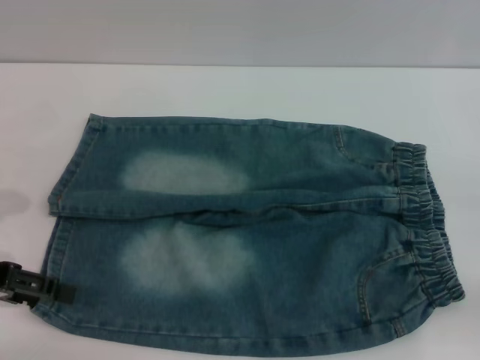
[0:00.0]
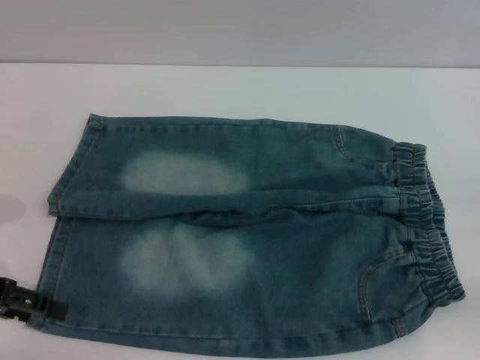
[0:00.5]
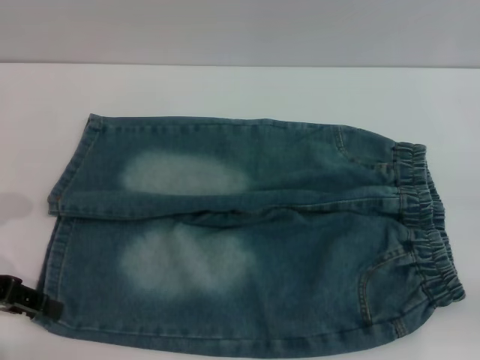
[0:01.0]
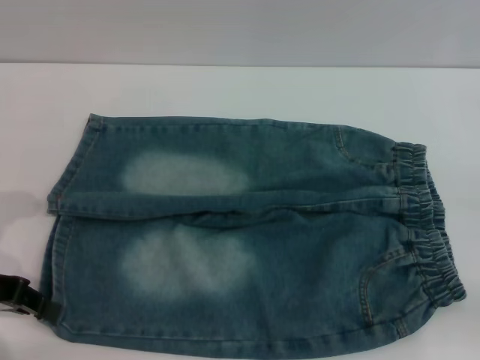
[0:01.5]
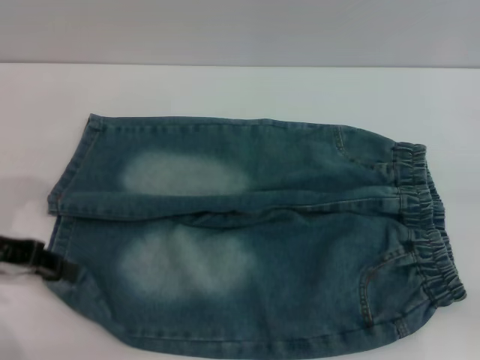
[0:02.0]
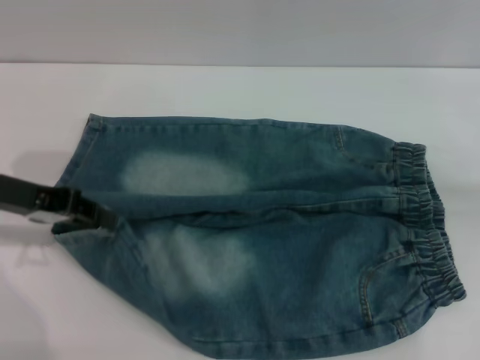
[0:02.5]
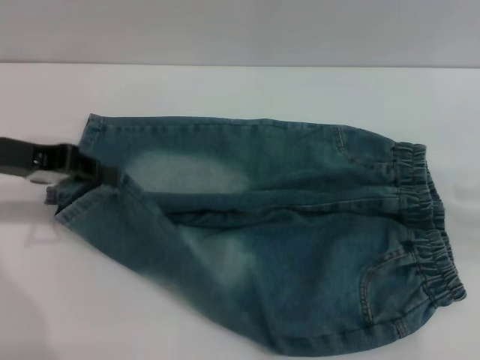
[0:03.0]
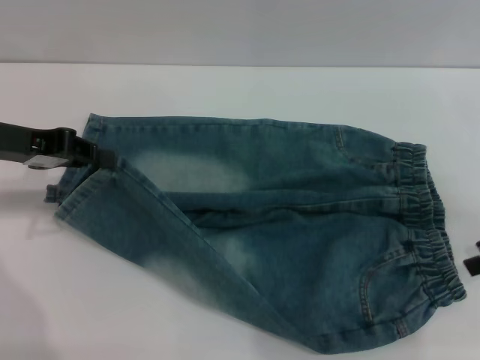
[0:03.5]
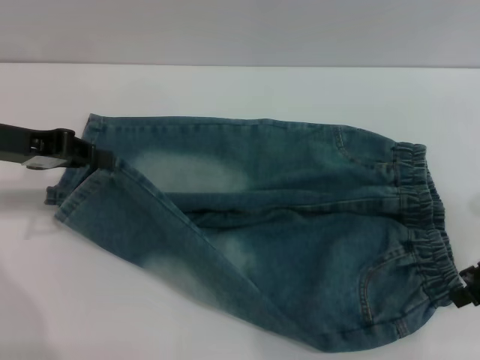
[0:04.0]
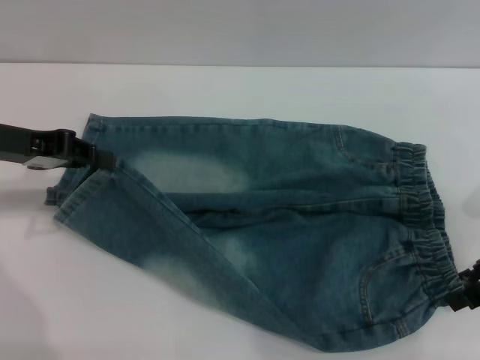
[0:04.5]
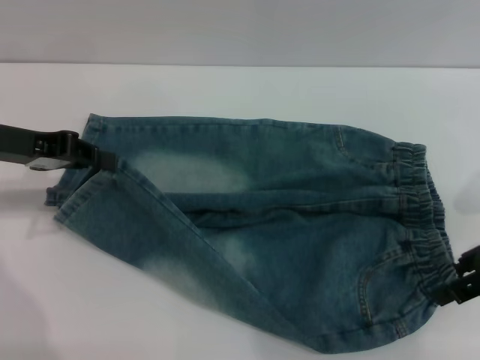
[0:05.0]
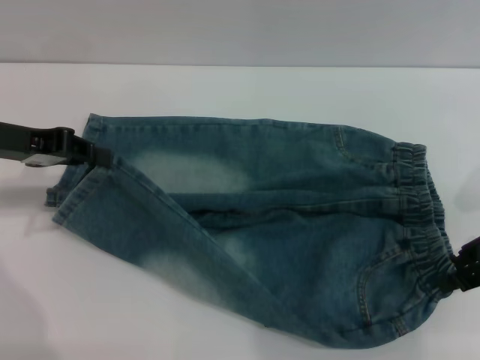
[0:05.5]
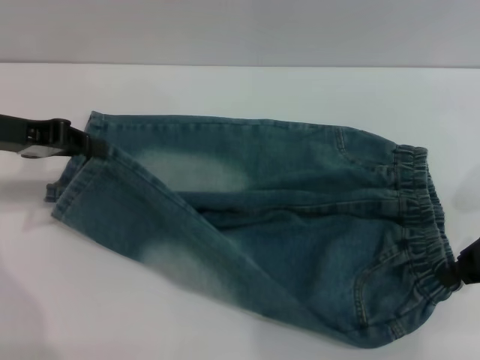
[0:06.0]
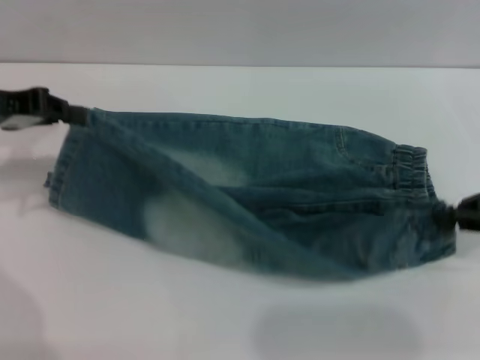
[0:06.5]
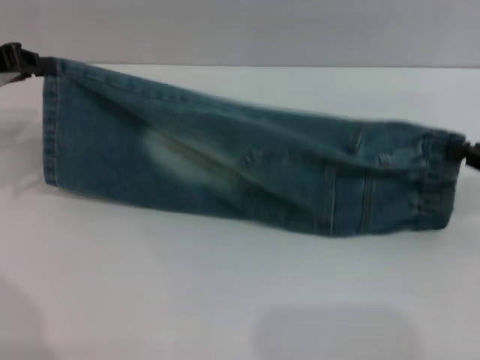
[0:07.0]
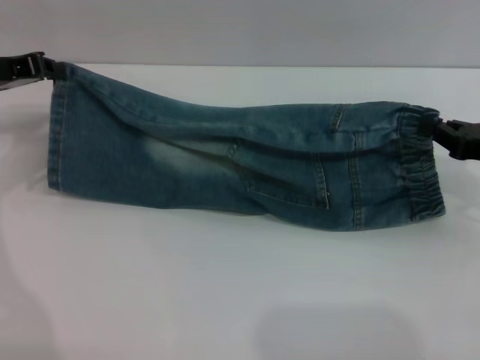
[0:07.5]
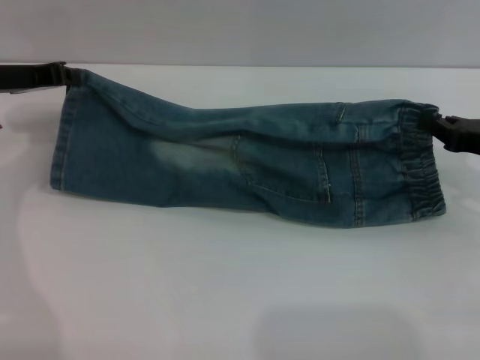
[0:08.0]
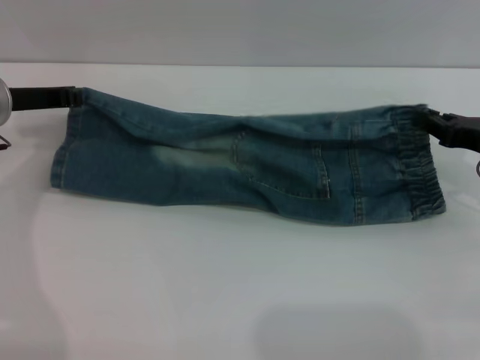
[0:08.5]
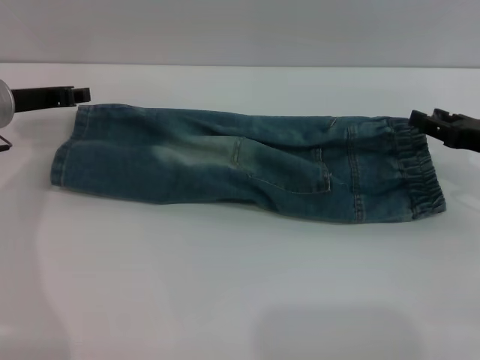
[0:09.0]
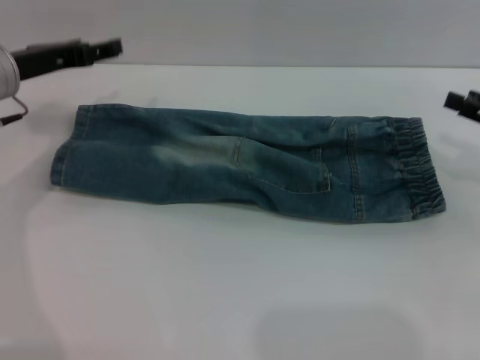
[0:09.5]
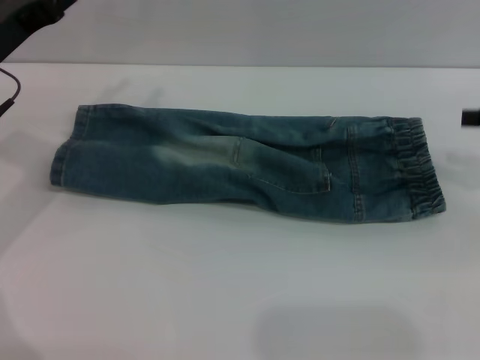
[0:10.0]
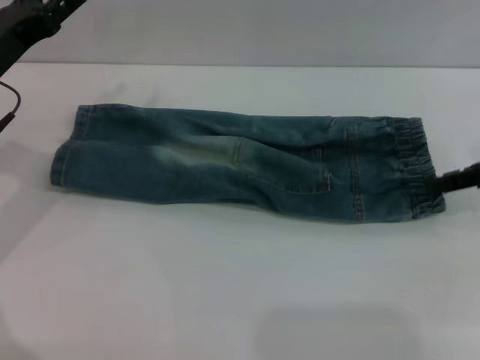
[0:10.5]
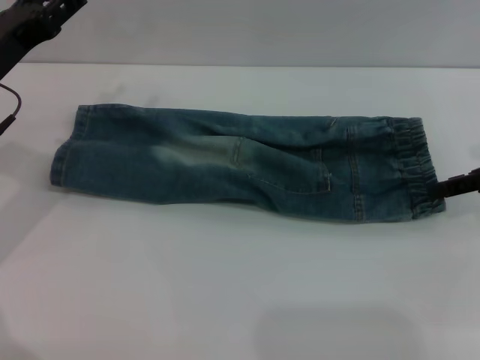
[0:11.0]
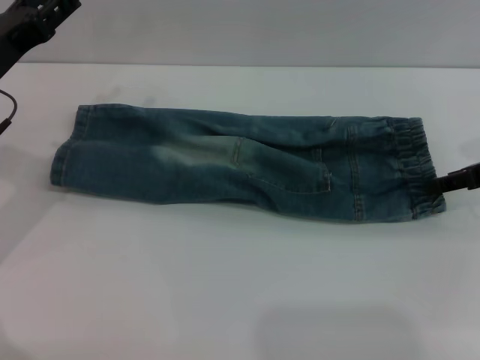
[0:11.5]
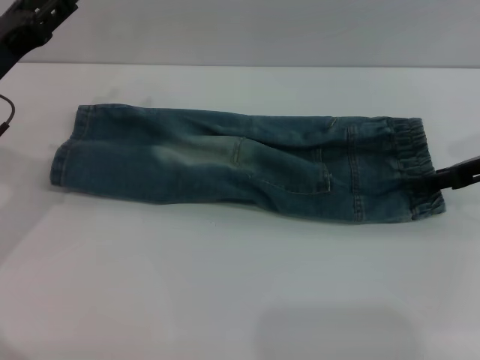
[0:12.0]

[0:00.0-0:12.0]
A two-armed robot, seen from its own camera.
Step, 0:00.0 to 0:09.5: Fold the bottom of the pants upward with both grippers.
0:00.0 to 0:02.0: The left gripper closes up.
0:02.0 to 0:04.0: The right gripper goes some 15 cm to the left and forward; the left gripper is displaced forward by some 5 cm.
0:04.0 to 0:06.0: The right gripper closes.
0:06.0 to 0:08.0: The right gripper is displaced downward by approximately 5 cm. The left gripper moves roughly 5 cm.
0:08.0 to 0:10.0: The left gripper opens up, while the right gripper shifts some 10 cm upward, and opens.
0:10.0 to 0:12.0: The right gripper is displaced to the left by about 5 cm.

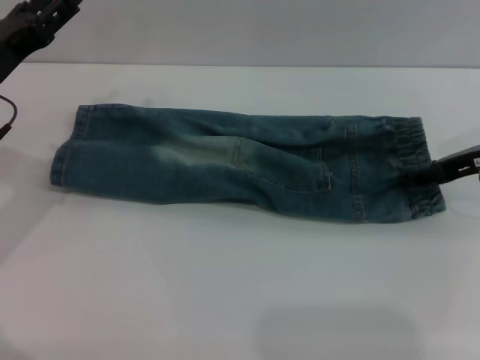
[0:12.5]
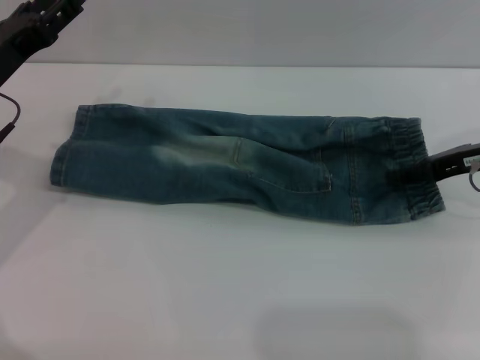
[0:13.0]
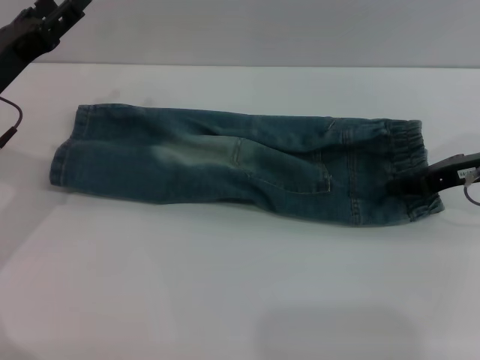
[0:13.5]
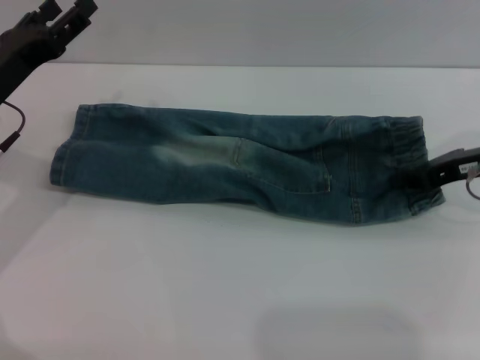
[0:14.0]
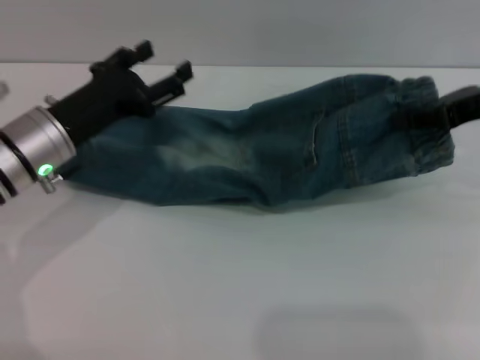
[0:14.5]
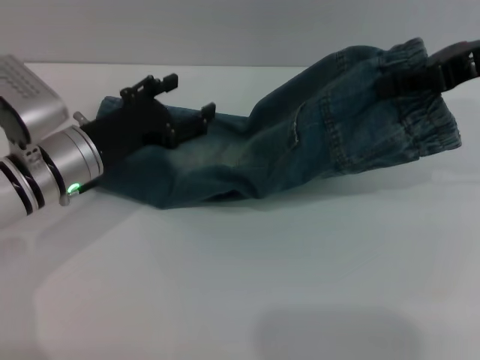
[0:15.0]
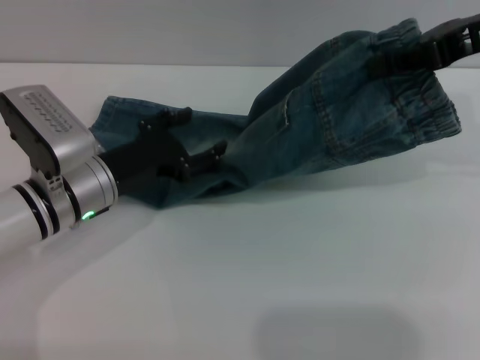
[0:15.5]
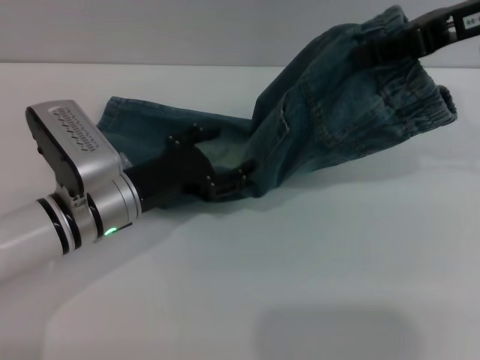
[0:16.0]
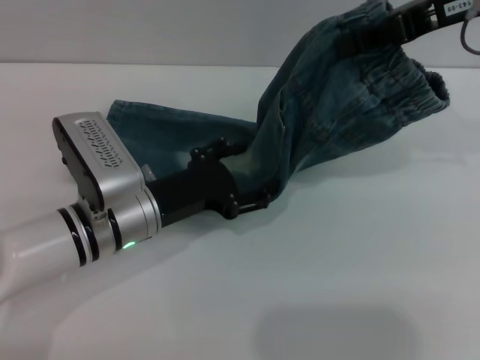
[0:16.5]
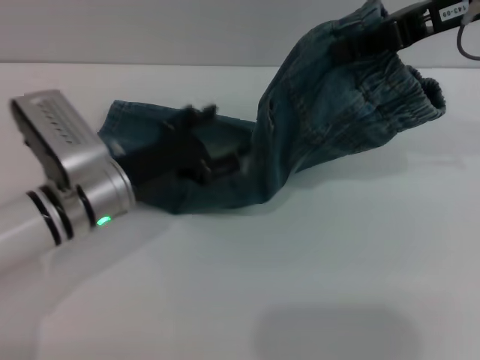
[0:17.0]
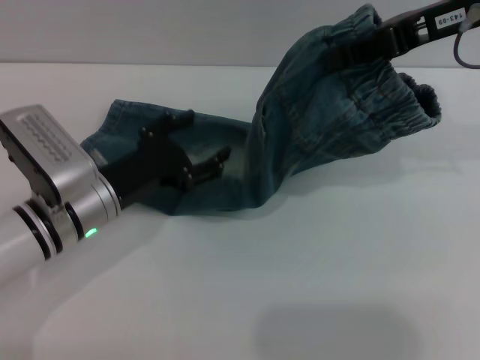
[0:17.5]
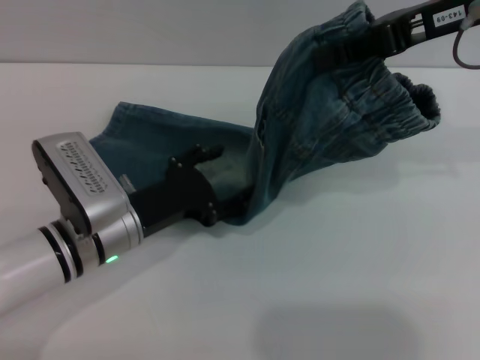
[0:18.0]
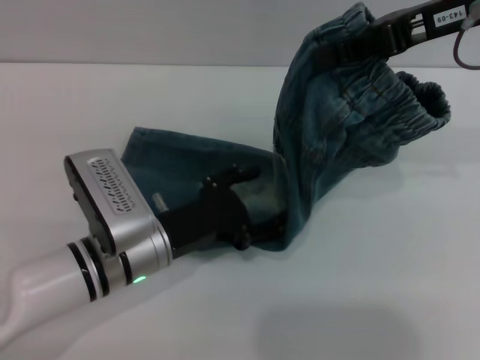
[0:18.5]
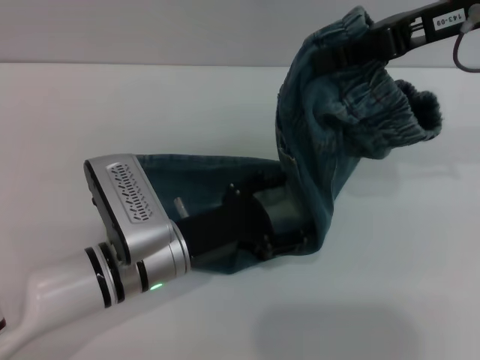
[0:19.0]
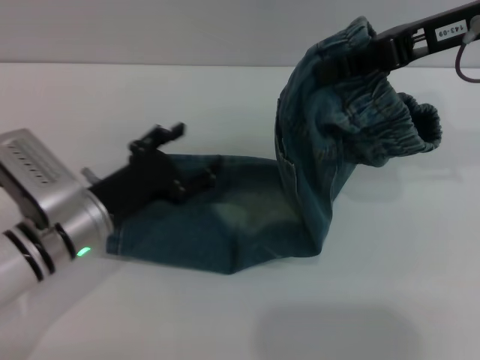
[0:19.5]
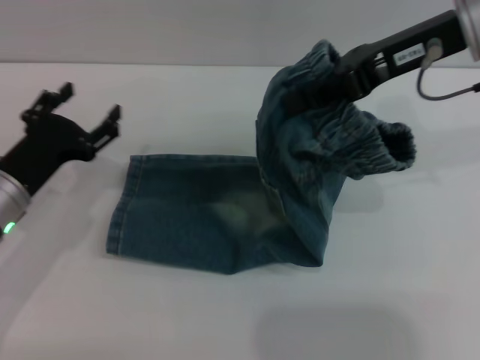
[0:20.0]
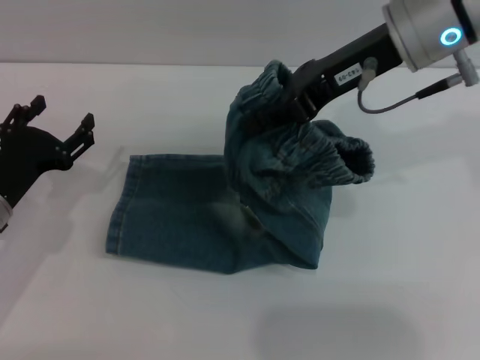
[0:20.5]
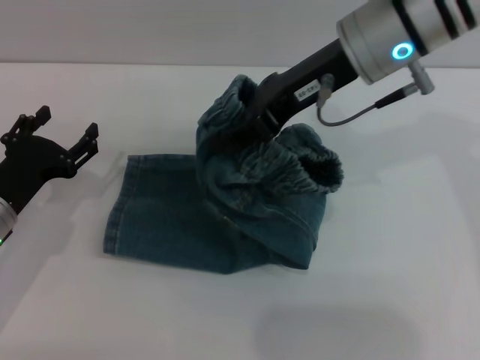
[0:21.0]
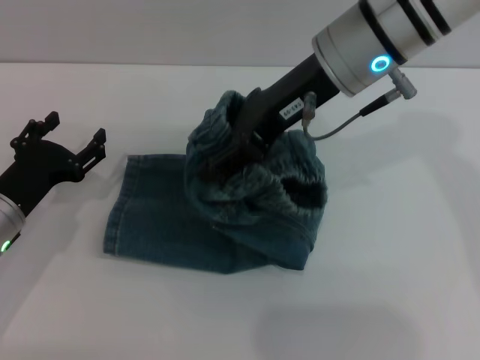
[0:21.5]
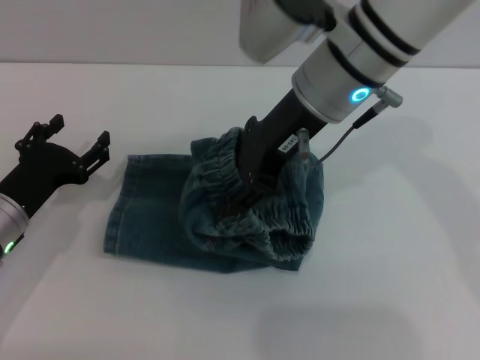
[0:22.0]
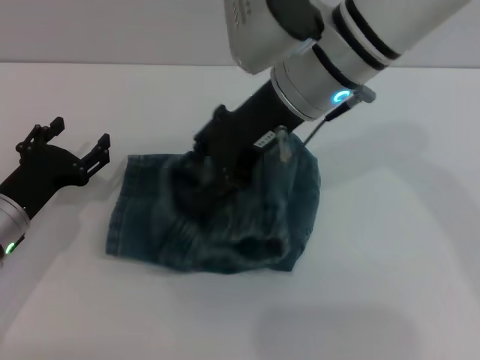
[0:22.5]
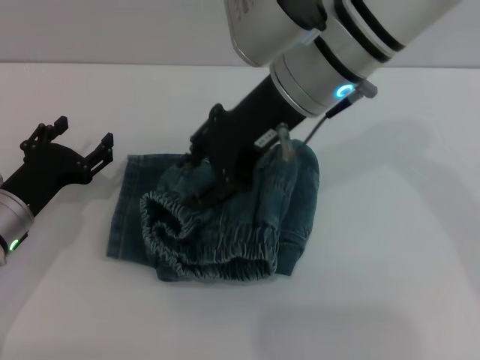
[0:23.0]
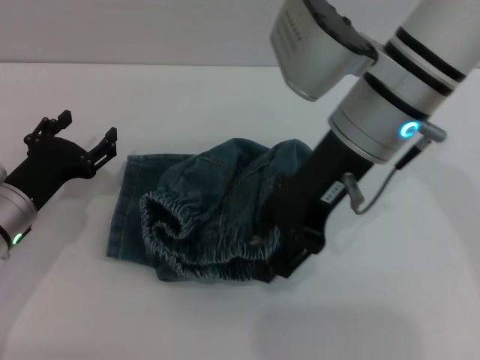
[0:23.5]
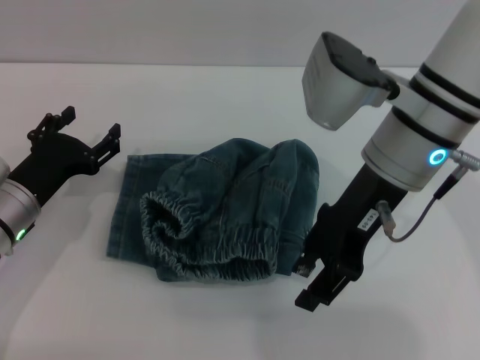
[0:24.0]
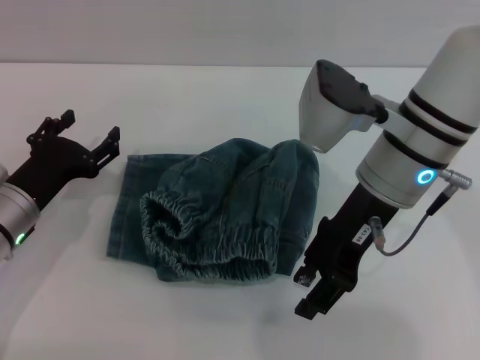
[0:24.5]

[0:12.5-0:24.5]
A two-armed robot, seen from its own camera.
Step, 0:12.5 to 0:23.0: Fold the pants from right to left with the right gripper.
0:12.5 to 0:14.5: The right gripper moves upward, approximately 5 cm, and closes up, while the left gripper is displaced to the right by approximately 5 cm.
0:14.5 to 0:16.5: The right gripper goes some 10 cm upward and to the left. Meanwhile the left gripper is displaced to the right by roughly 5 cm.
0:18.5 to 0:20.5: The left gripper heads to the left, covering roughly 15 cm. Meanwhile the right gripper heads to the left, covering approximately 10 cm.
0:20.5 to 0:22.5: The right gripper moves to the left, approximately 10 cm, and opens its fingers.
0:22.5 to 0:24.5: The right gripper travels to the right and downward by some 10 cm.

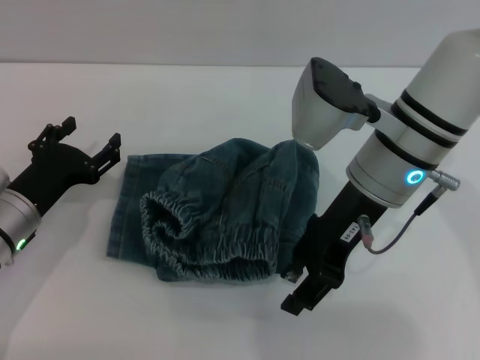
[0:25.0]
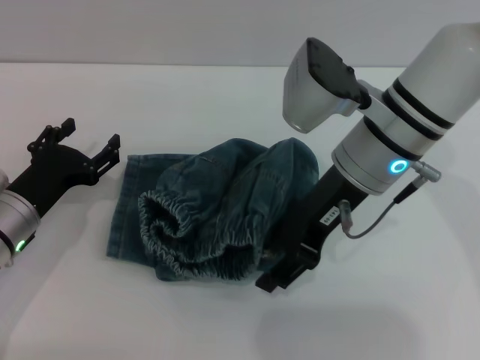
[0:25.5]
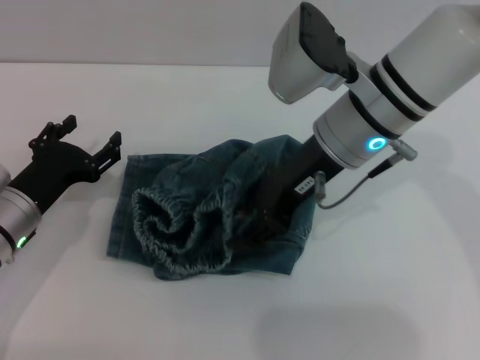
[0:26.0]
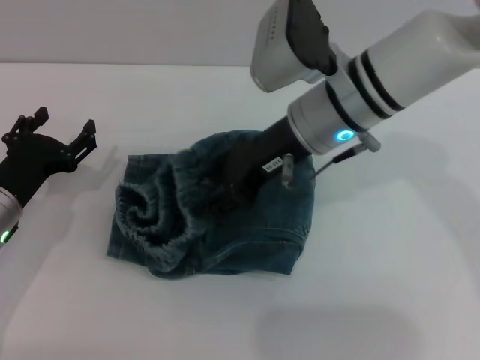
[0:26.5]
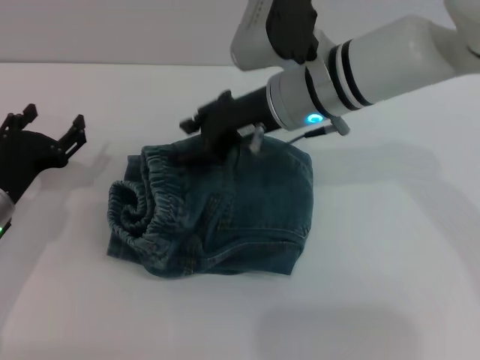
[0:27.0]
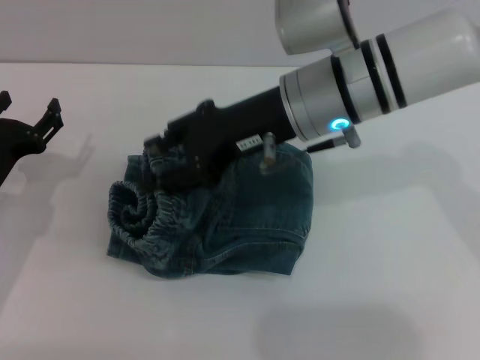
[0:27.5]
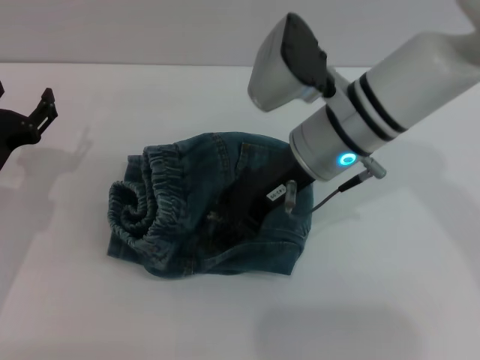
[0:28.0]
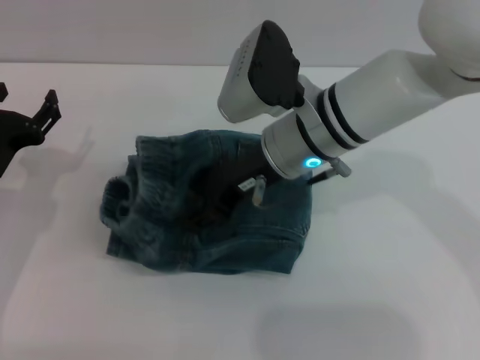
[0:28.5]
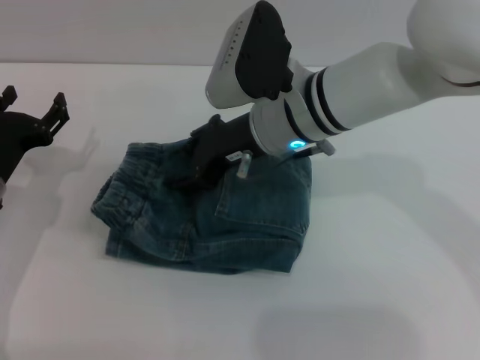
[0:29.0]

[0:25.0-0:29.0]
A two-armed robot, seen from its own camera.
0:25.0 to 0:27.0: The right gripper travels to the left and forward by about 5 cm.
